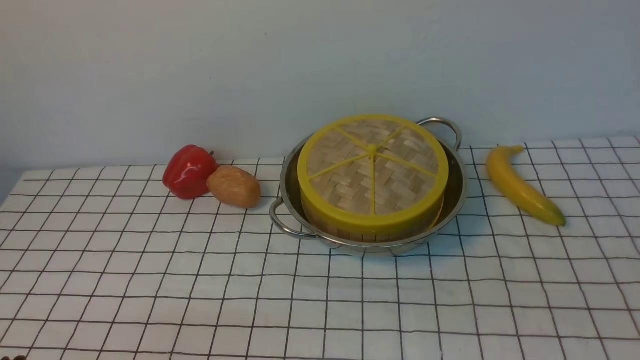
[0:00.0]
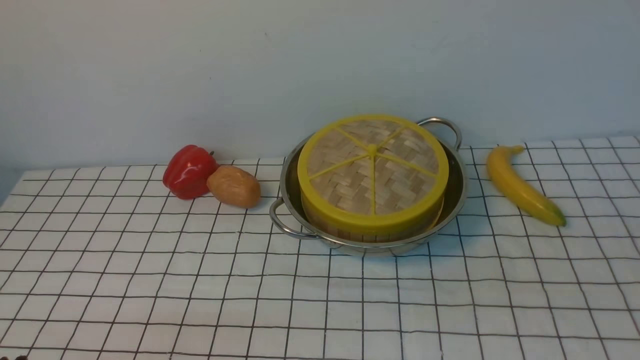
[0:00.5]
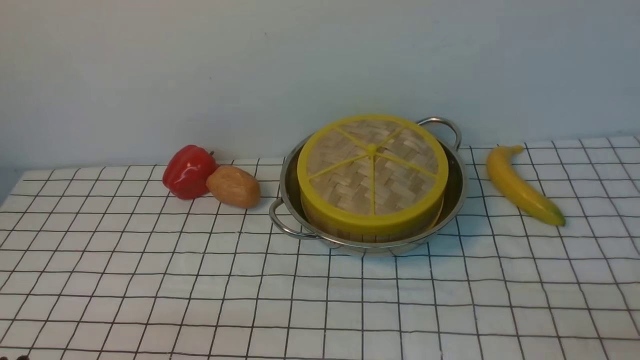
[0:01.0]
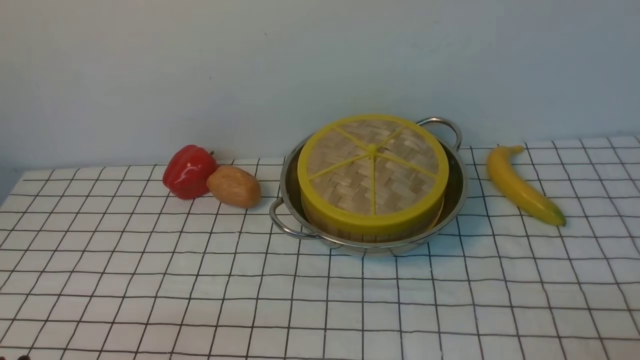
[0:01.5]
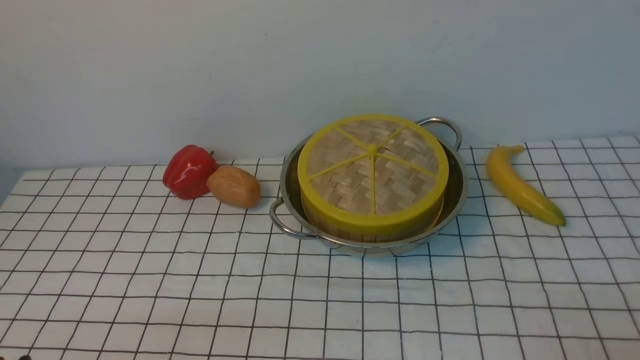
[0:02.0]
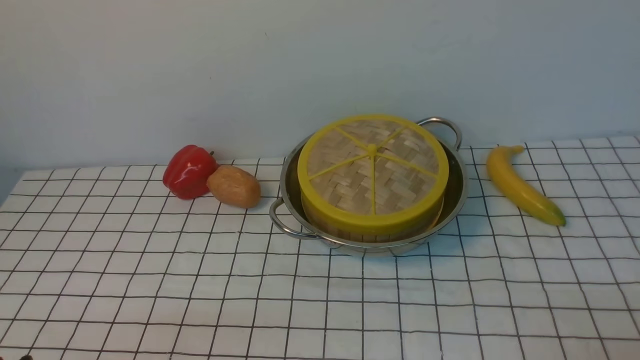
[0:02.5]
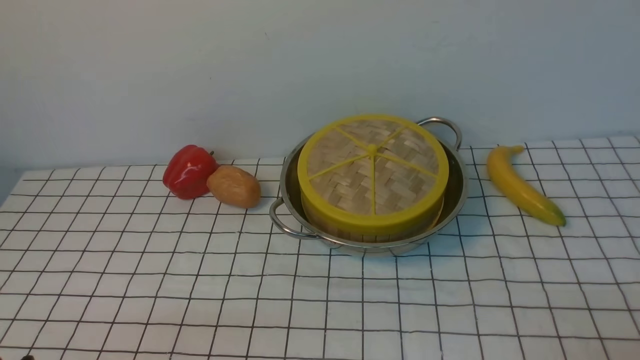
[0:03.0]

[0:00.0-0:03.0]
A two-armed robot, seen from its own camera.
Task of the whole recording: place the steamer in the pot on the white tablecloth, and put the lid on the steamer.
0:01.5 to 0:03.0: The two grippers keep their place.

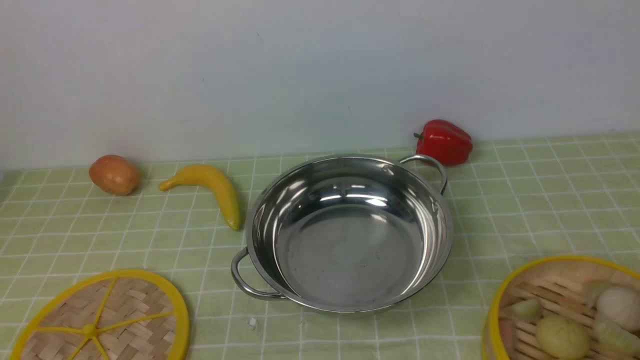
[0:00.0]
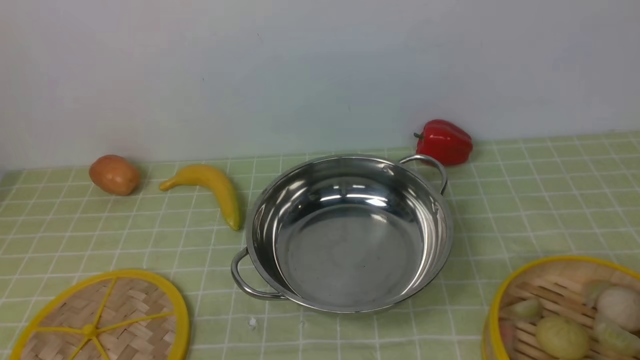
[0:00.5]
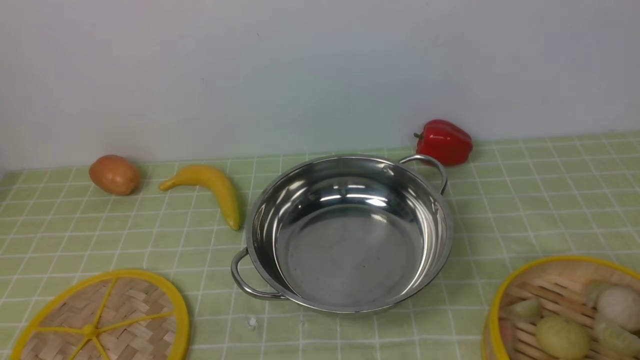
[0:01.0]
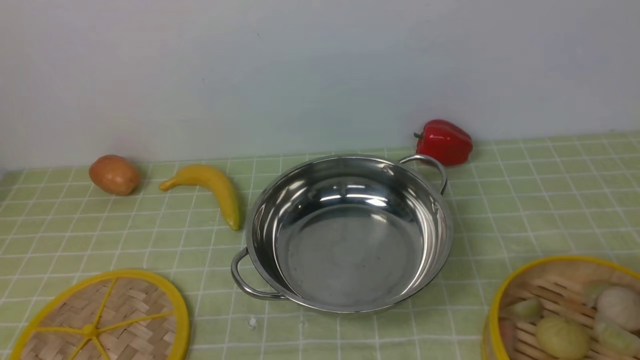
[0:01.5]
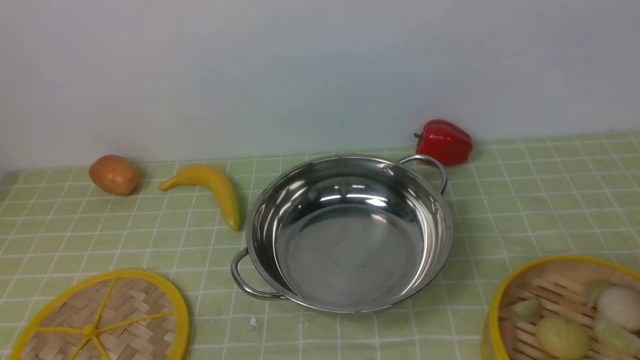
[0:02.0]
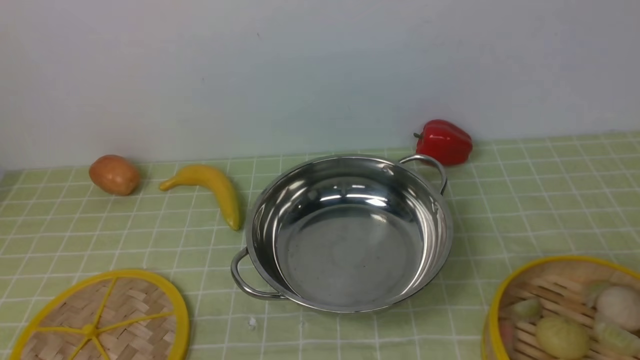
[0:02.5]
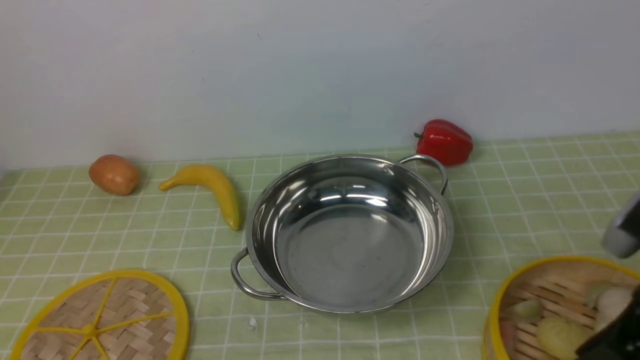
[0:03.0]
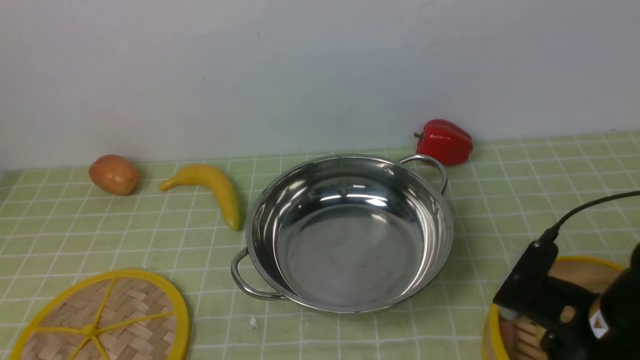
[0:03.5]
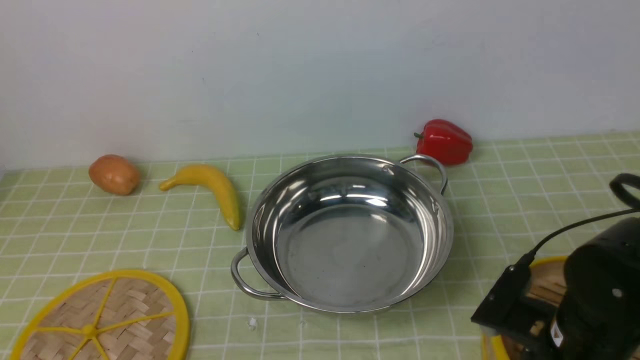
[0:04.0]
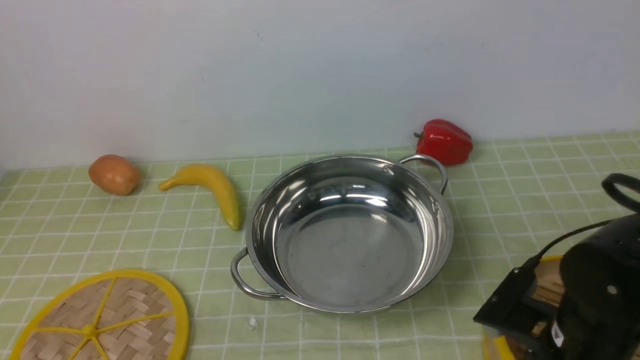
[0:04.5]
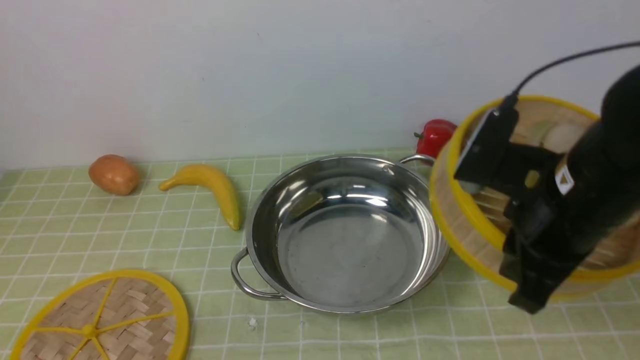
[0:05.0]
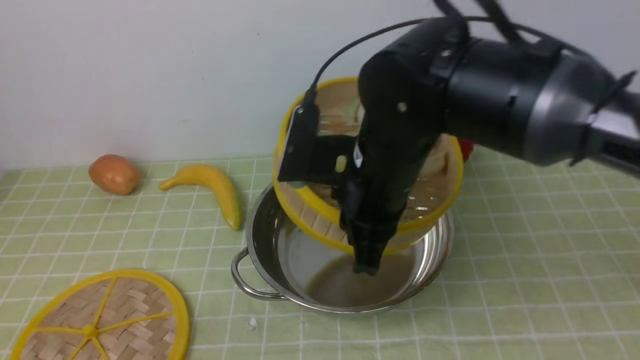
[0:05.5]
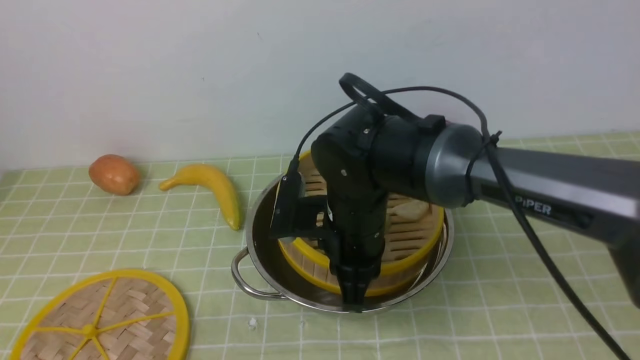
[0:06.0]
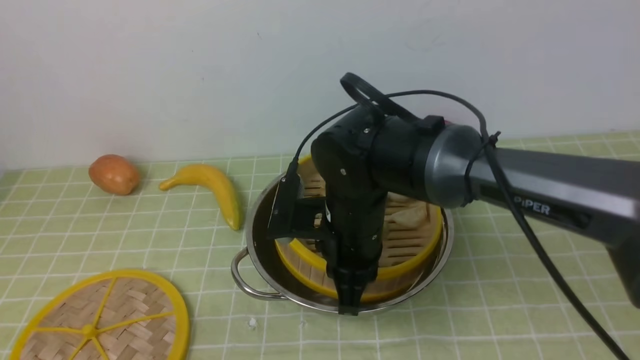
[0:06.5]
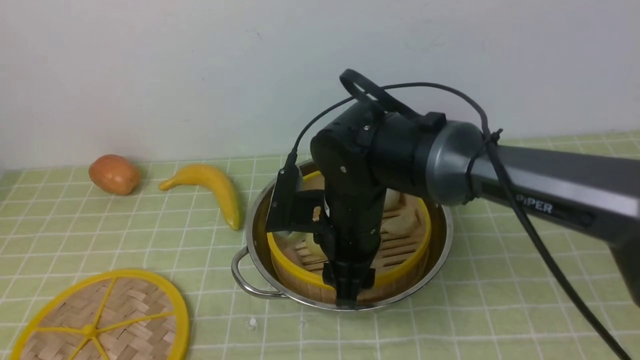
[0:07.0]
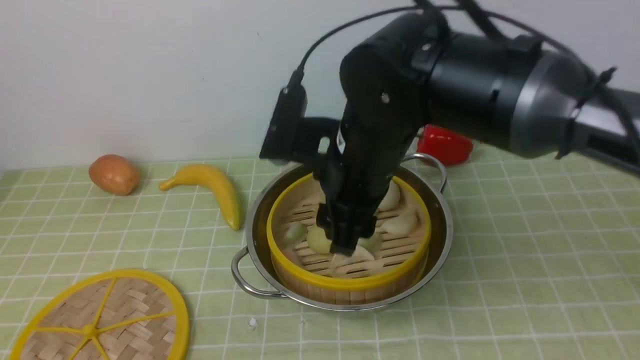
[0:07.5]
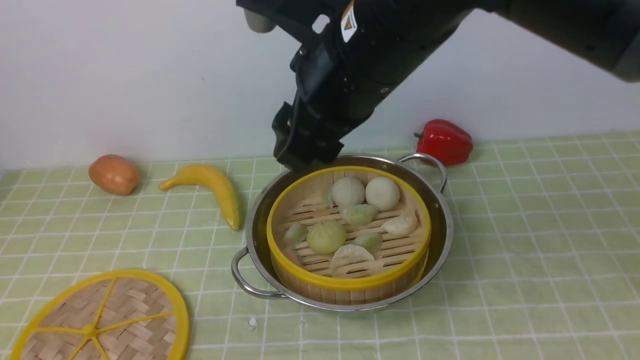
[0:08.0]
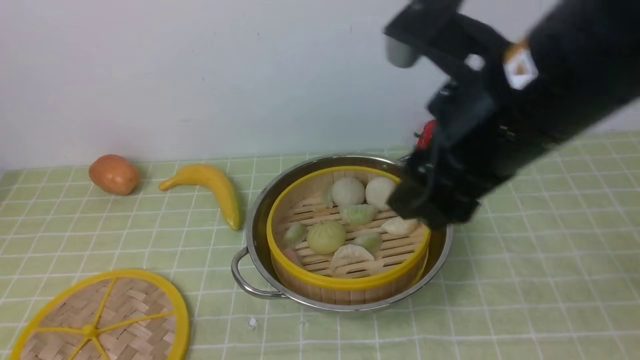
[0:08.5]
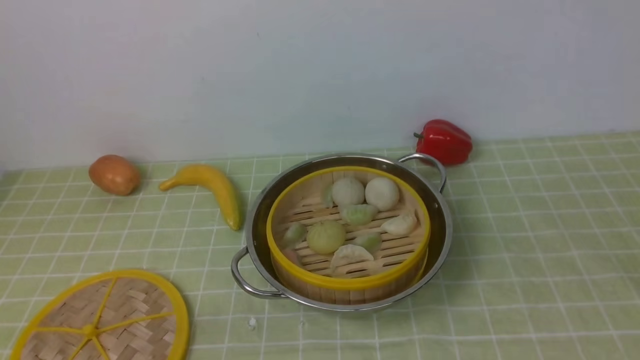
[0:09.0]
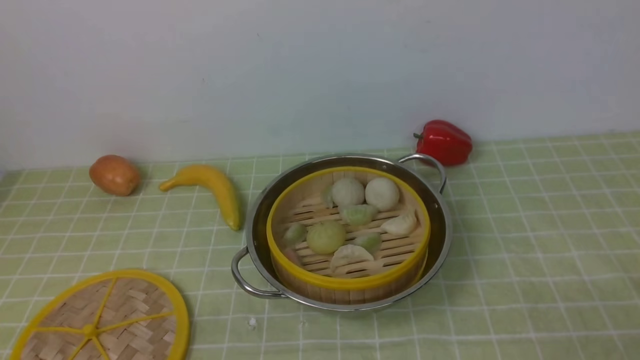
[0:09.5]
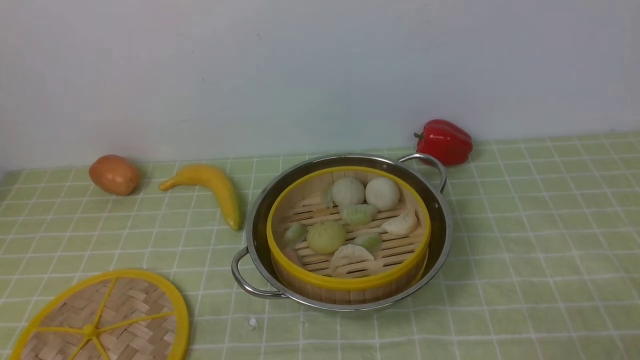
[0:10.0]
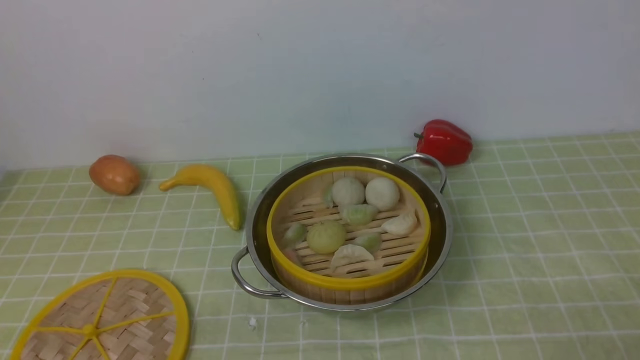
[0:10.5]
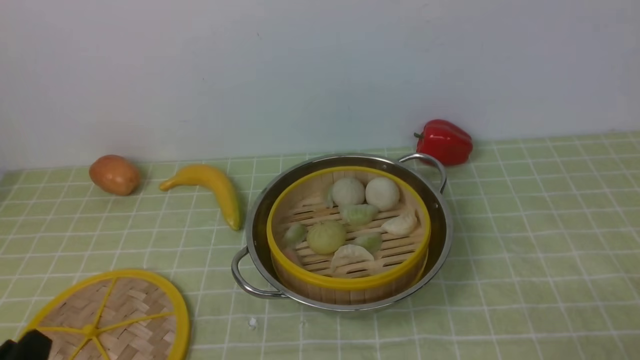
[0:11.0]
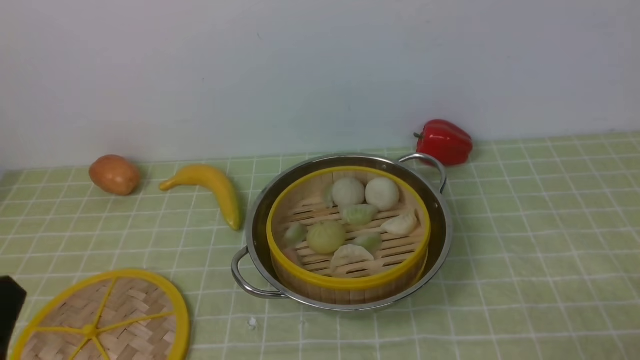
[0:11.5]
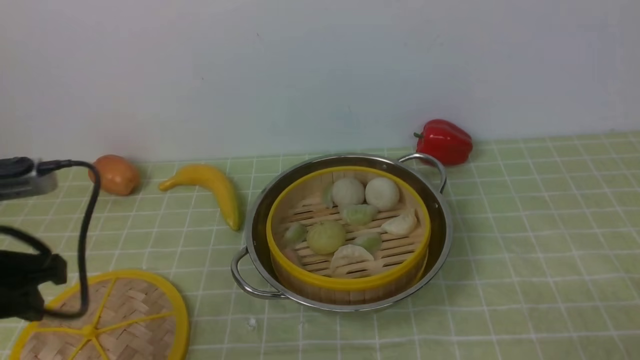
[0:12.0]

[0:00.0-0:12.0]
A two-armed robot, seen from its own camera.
Task of the whole recording: place the steamer in the pot on the green tablecloth, and put the lid on the steamer.
Step, 0:00.0 to 0:05.0: use the right arm to lift the steamer closest to it.
Step, 0:05.5 to 0:07.0: use the right arm to put the steamer into the iron steamer pot in the middle.
0:02.0 to 0:04.0: The right gripper moves forward, downward and to the left, approximately 25 cm.
0:04.0 to 0:06.0: The right gripper is displaced to the left and forward by some 20 cm, and closes its fingers.
0:06.0 to 0:08.0: The right gripper is displaced upward by some 20 cm, and opens up.
0:08.0 to 0:10.0: The right gripper heads to the right, backward and downward, covering about 40 cm.
0:10.0 to 0:12.0: The left gripper is displaced forward and upward by about 20 cm.

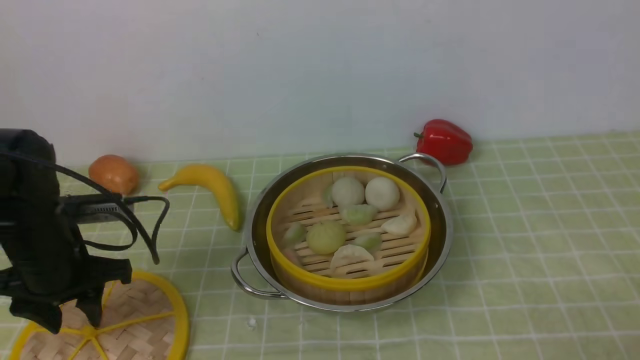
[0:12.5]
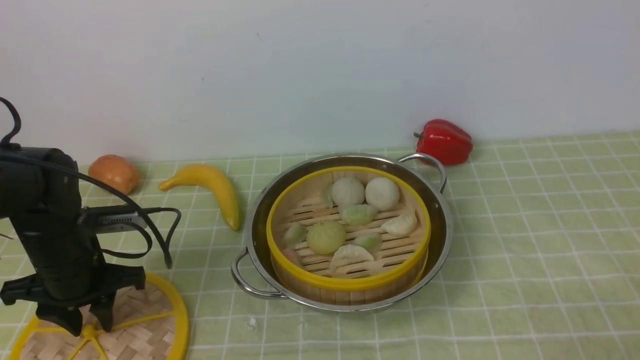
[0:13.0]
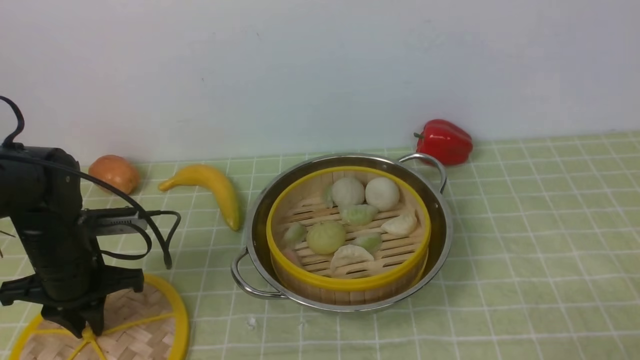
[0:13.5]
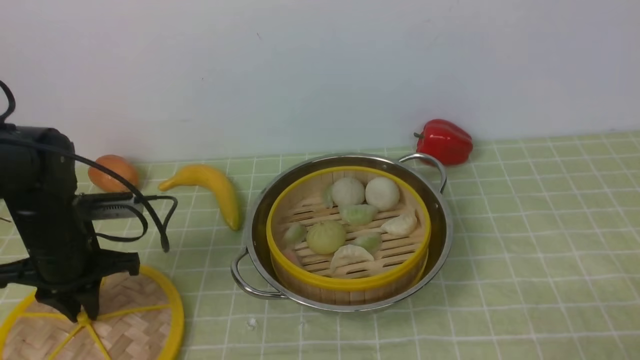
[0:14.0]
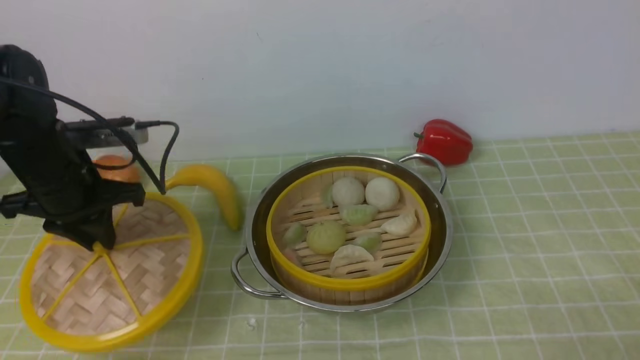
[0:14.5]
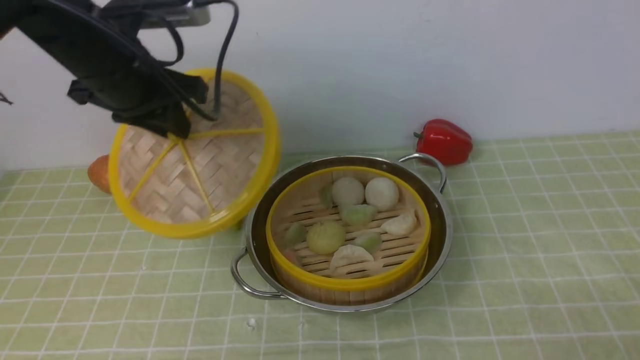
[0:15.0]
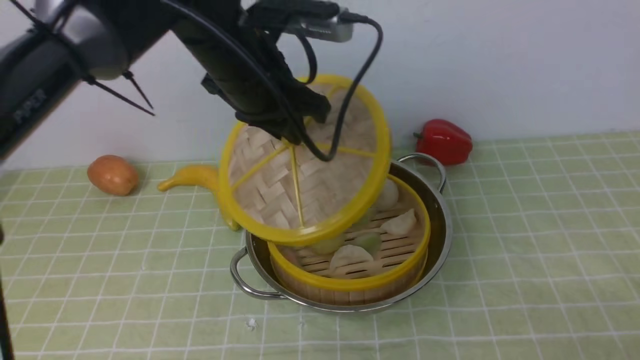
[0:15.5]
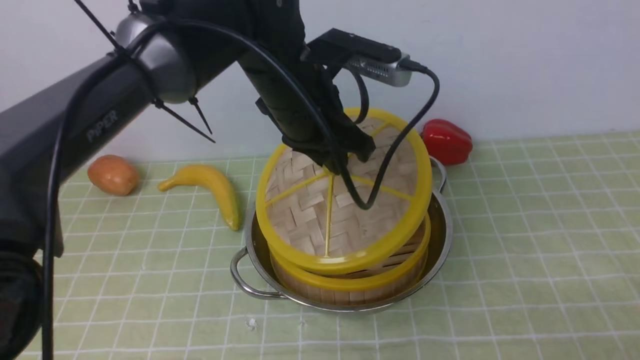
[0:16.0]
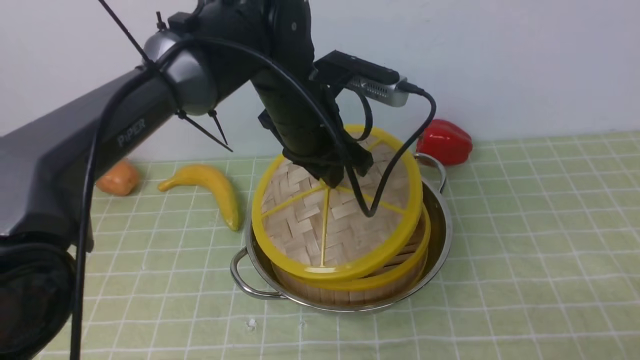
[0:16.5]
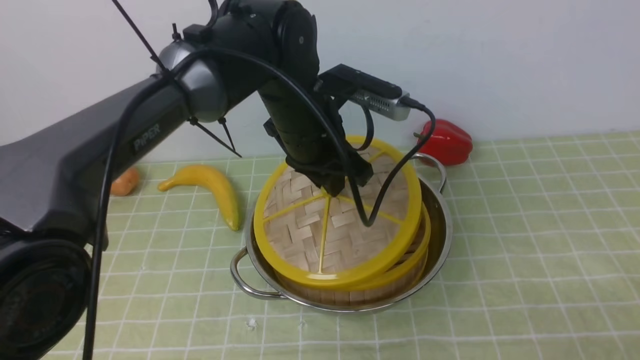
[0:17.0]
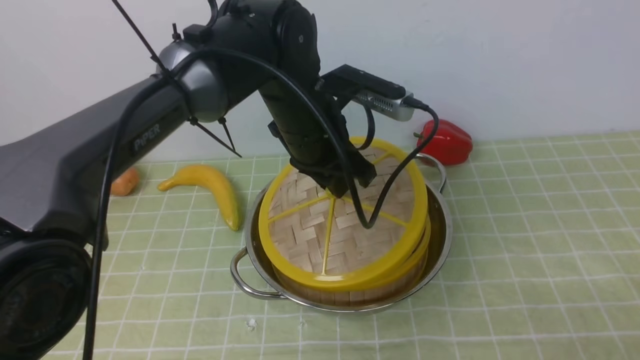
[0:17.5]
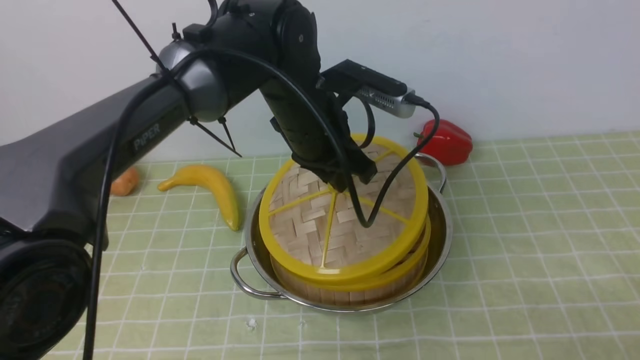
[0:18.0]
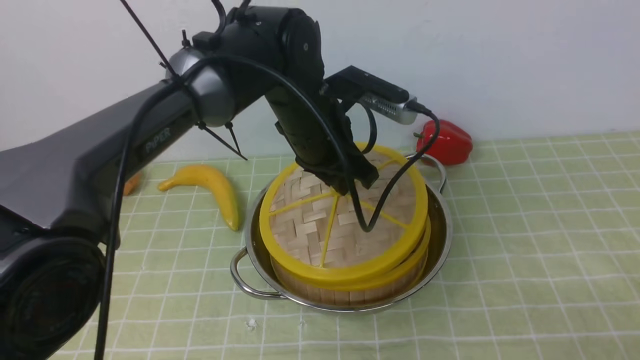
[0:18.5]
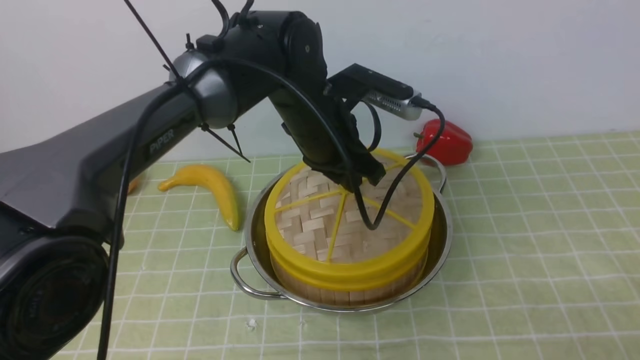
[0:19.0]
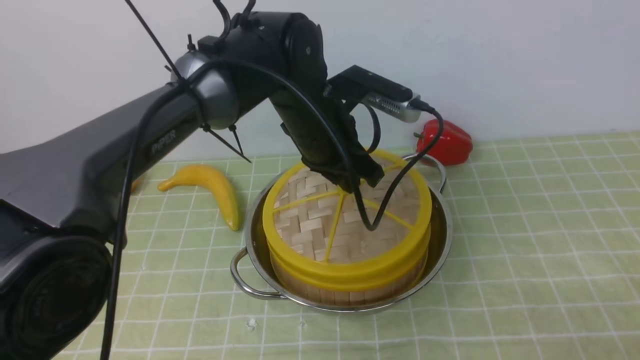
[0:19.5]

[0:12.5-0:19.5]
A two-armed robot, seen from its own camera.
Task of the whole recording: place the steamer in the pot on the green tablecloth, and put the lid on the steamer.
Step, 0:12.5 to 0:14.5: use the left arm to lift the lid of the steamer.
0:12.5 to 0:14.5: The left gripper moves upward and forward, approximately 10 cm, and closes up.
0:14.5 to 0:16.0: The left gripper is displaced to the right by some 25 cm.
0:17.5 to 0:19.5: The grippers make only small movements.
